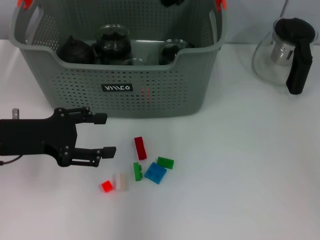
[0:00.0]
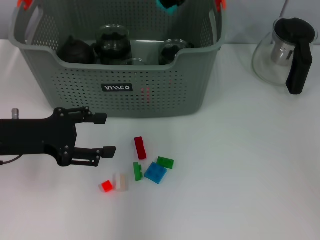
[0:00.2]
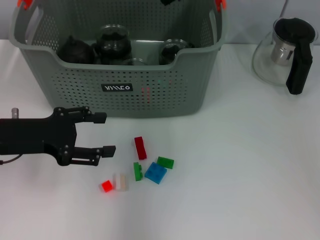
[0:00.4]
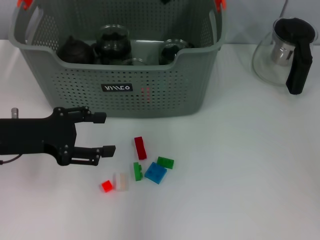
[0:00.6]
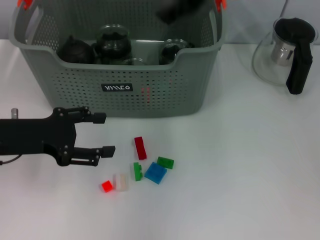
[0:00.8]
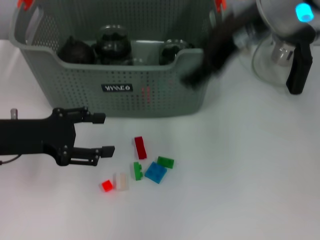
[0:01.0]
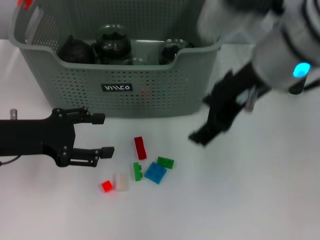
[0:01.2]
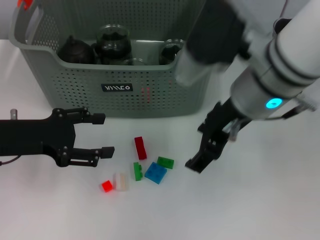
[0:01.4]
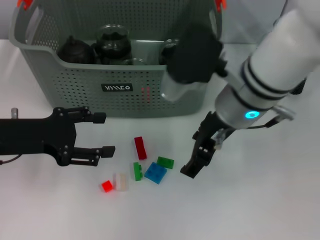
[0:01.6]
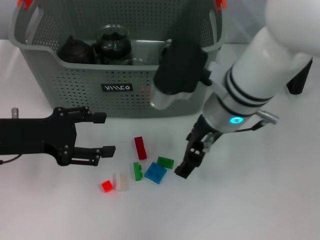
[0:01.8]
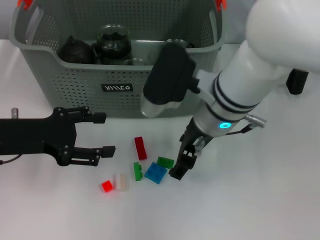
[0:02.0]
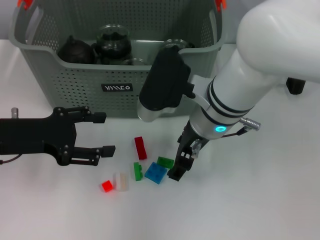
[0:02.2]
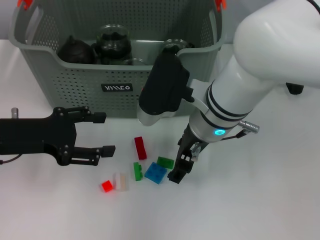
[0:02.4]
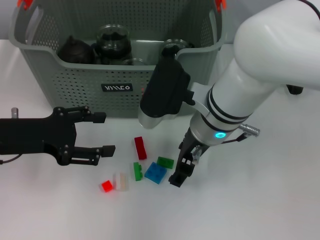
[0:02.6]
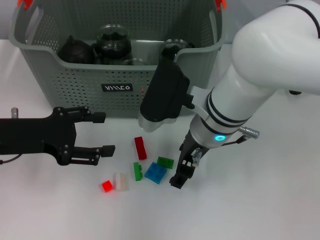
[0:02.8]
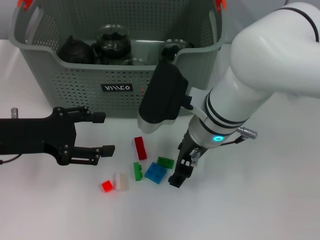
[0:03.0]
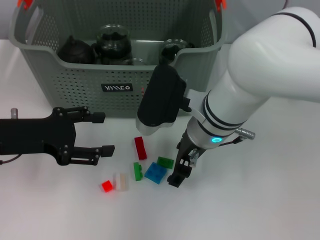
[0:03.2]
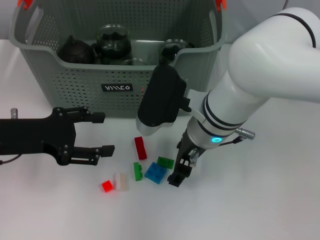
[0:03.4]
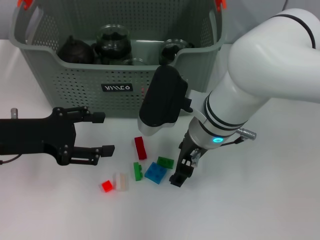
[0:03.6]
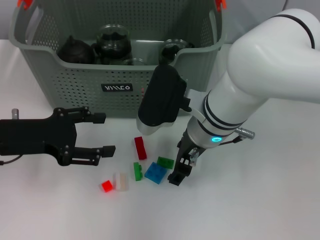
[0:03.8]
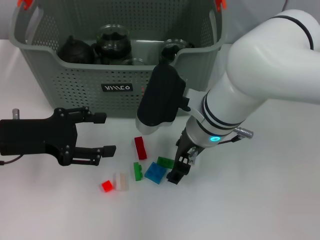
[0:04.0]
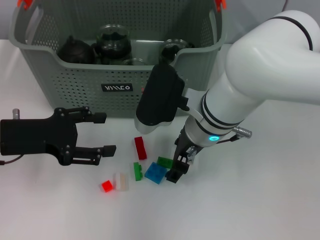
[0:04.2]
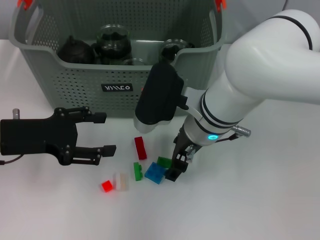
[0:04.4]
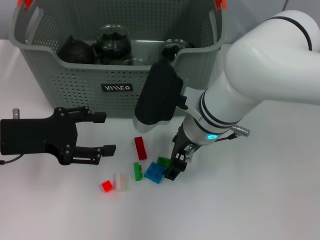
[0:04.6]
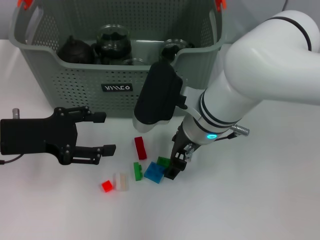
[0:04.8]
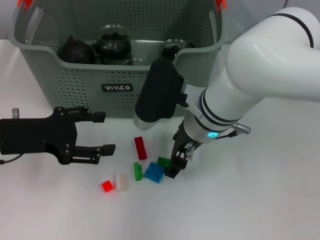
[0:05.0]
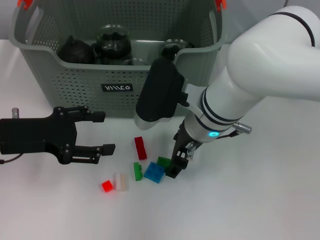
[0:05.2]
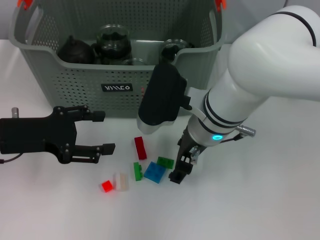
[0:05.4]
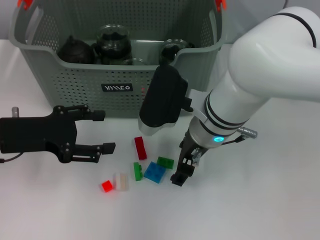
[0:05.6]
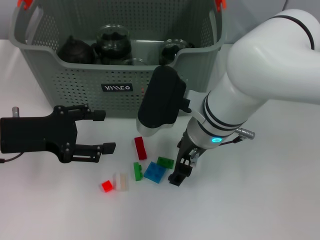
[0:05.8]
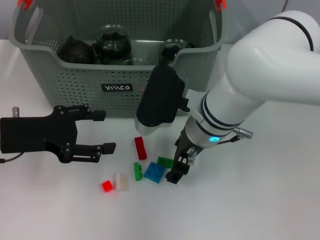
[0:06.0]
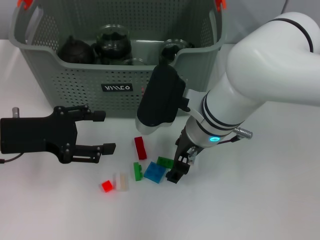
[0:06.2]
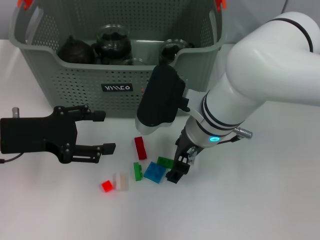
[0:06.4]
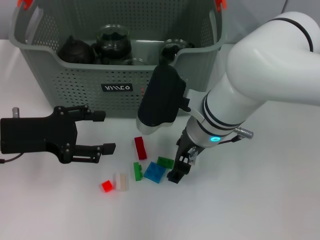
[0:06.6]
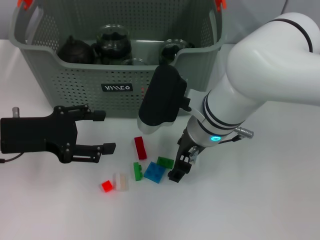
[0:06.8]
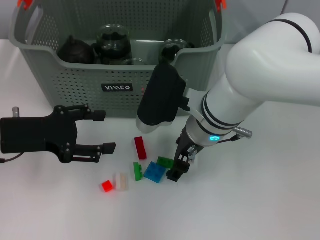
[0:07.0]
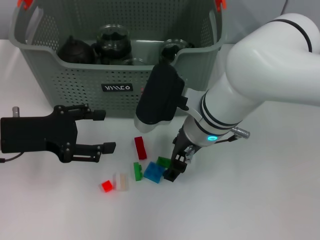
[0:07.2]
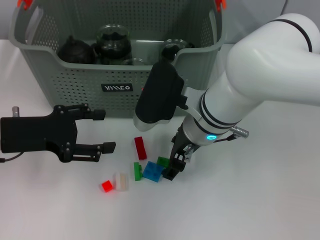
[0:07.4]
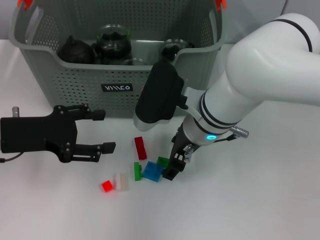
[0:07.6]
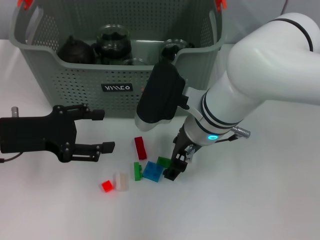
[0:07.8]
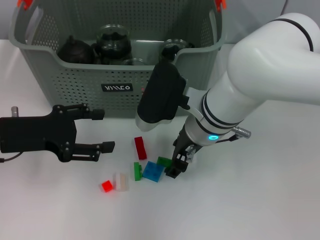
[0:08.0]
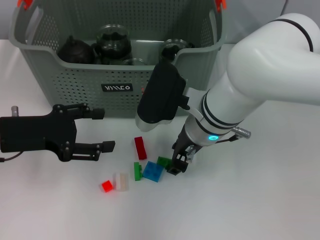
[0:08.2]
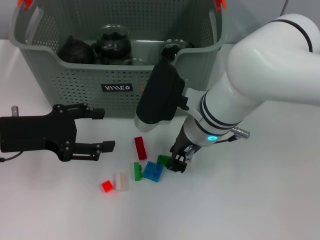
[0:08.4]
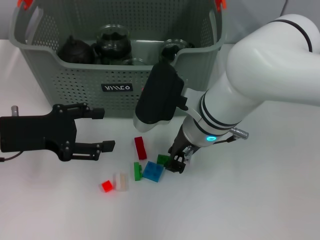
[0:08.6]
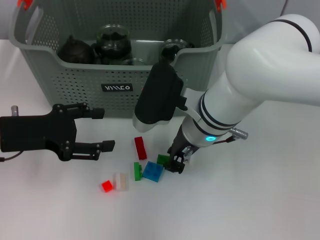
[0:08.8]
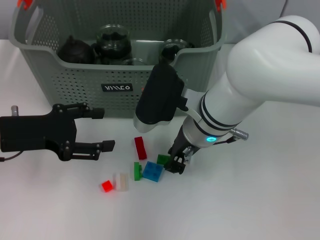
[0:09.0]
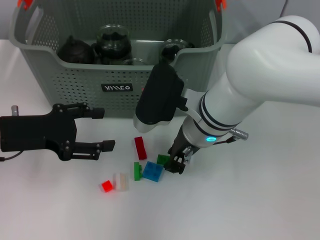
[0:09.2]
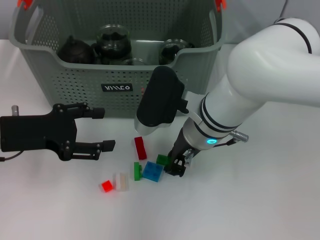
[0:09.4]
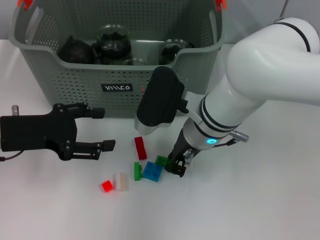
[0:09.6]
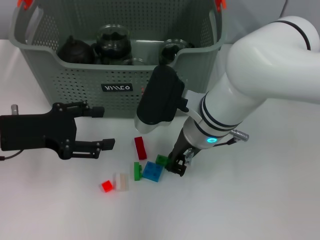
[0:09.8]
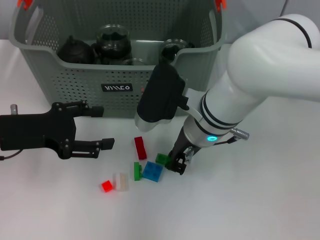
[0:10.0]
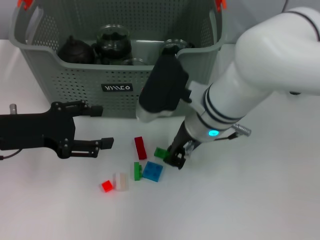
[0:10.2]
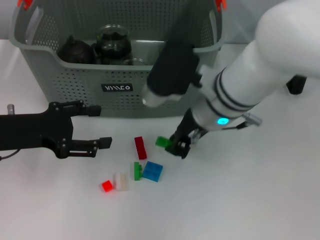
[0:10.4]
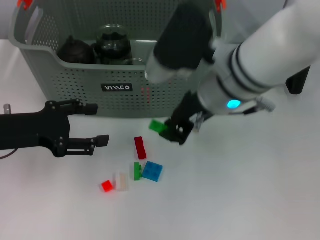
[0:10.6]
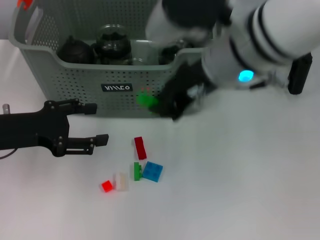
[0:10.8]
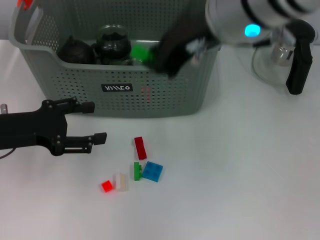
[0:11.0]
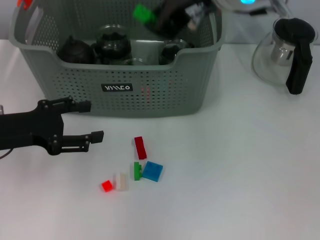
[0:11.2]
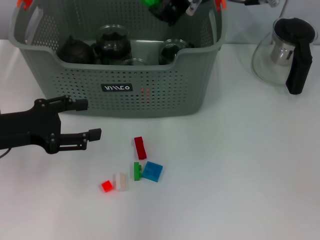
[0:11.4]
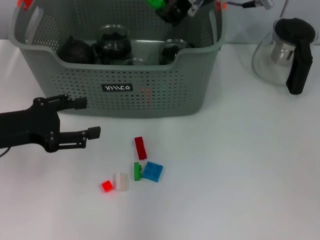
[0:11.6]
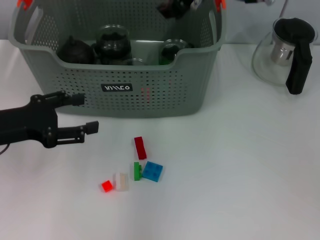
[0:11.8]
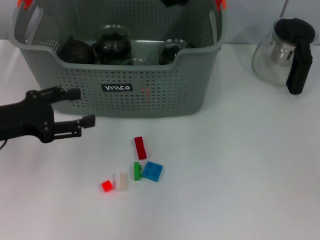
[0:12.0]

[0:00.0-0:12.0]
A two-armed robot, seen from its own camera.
Task of the whole recording: pick up the teacup on the table and place it into the storage bin, pick up the block on the table and place it into the storage bin.
Step, 0:00.6 to 0:09.6: Grasp the green block with right gripper.
Step, 0:09.8 to 0:11.8: Place the green block in the storage box with right gripper.
0:00.0 to 0:01.6: The right gripper is displaced downward and backward by approximately 15 cm, and opens.
0:01.6 to 0:03.0: The right gripper goes roughly 5 cm downward.
0:03.0 to 0:07.6: Both grippers stay put.
0:07.6 to 0:09.0: The right gripper closes.
0:09.0 to 0:10.4: The grippers make only small movements.
0:10.4 to 0:12.0: The right gripper goes roughly 15 cm upward and forward.

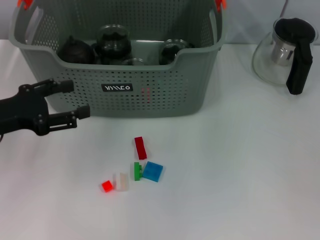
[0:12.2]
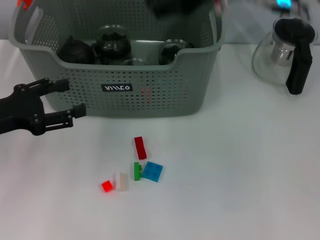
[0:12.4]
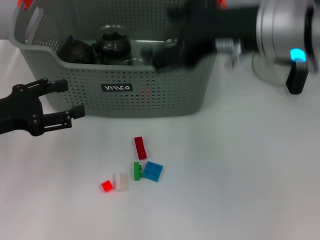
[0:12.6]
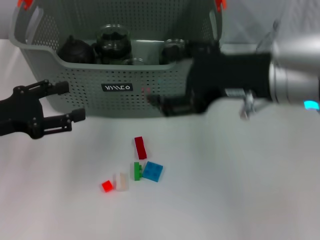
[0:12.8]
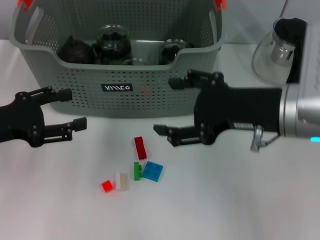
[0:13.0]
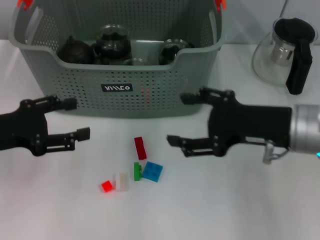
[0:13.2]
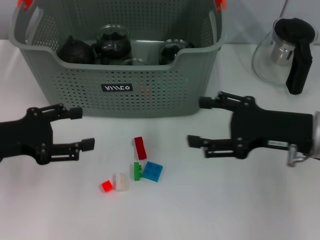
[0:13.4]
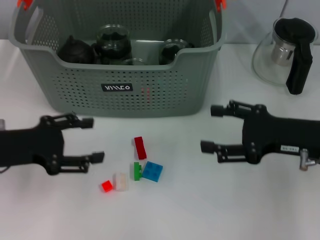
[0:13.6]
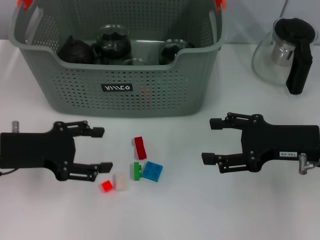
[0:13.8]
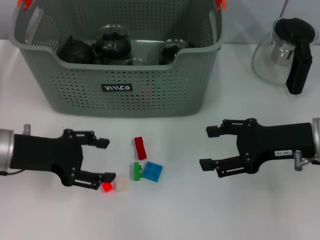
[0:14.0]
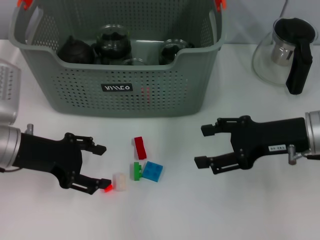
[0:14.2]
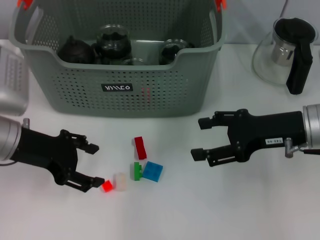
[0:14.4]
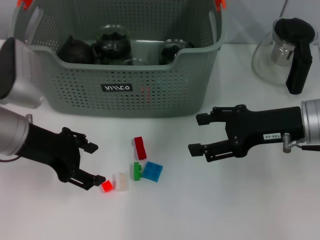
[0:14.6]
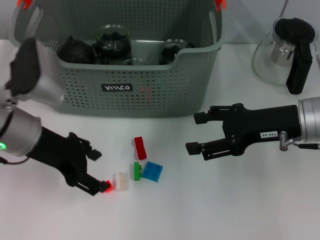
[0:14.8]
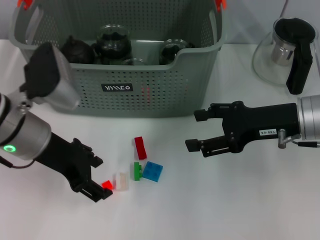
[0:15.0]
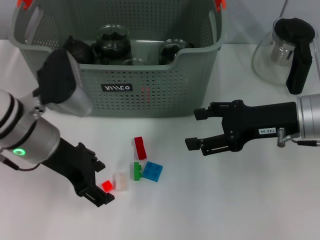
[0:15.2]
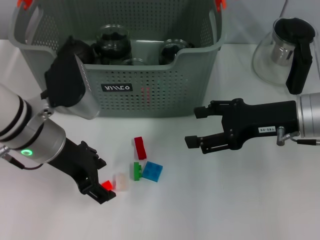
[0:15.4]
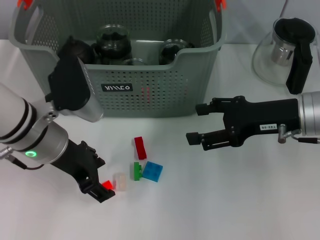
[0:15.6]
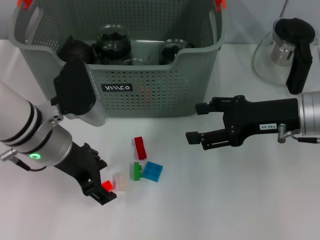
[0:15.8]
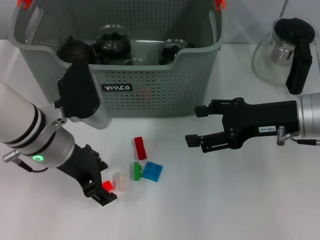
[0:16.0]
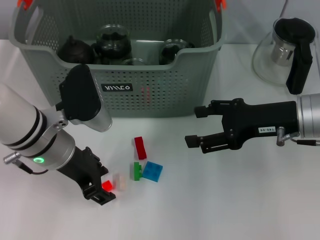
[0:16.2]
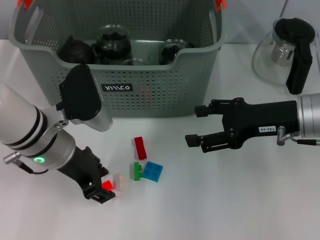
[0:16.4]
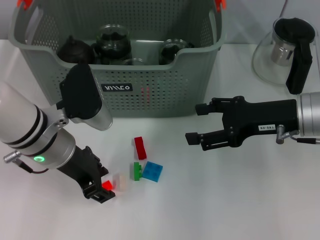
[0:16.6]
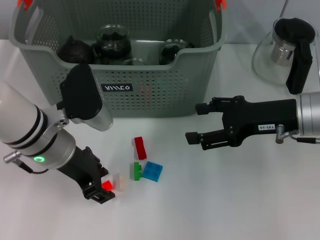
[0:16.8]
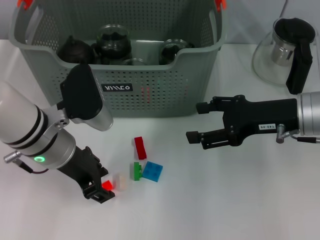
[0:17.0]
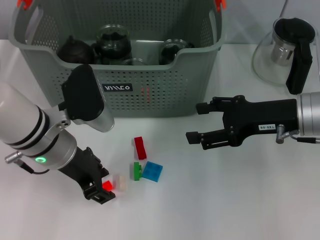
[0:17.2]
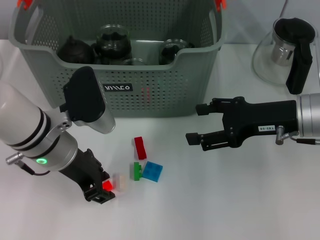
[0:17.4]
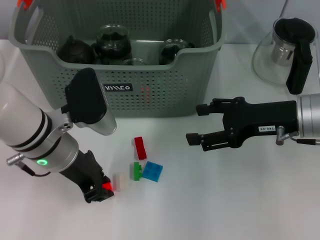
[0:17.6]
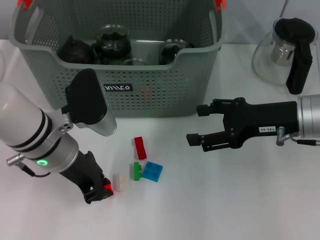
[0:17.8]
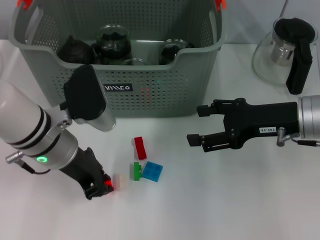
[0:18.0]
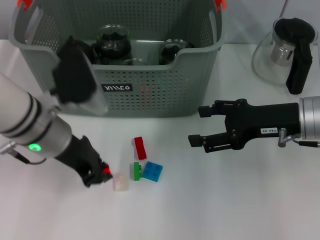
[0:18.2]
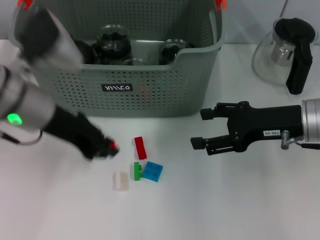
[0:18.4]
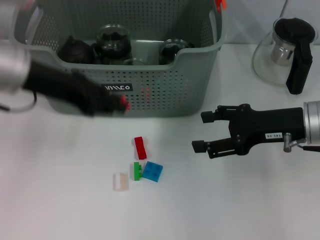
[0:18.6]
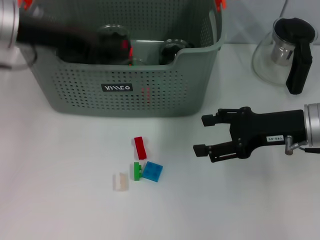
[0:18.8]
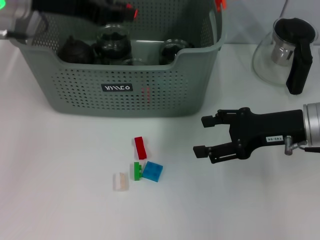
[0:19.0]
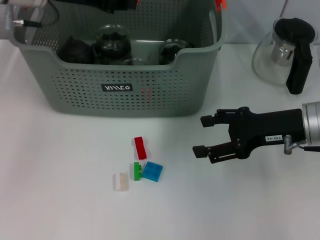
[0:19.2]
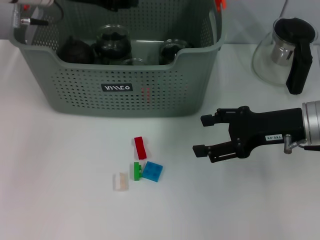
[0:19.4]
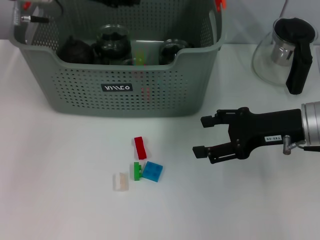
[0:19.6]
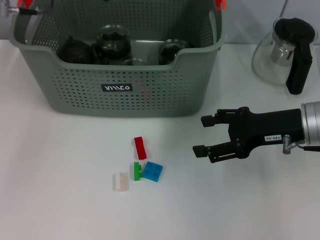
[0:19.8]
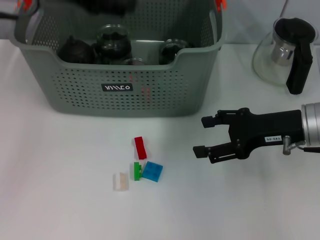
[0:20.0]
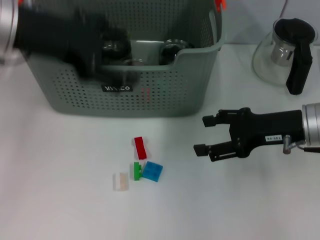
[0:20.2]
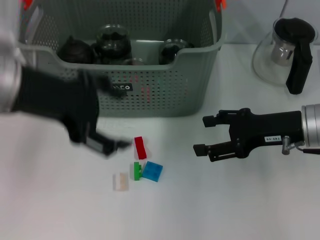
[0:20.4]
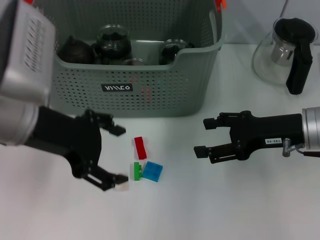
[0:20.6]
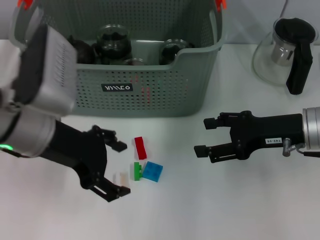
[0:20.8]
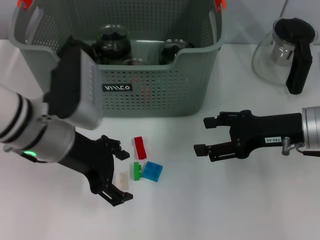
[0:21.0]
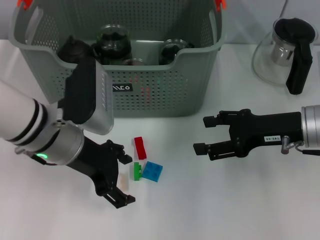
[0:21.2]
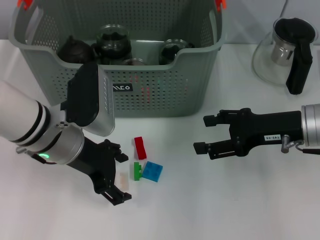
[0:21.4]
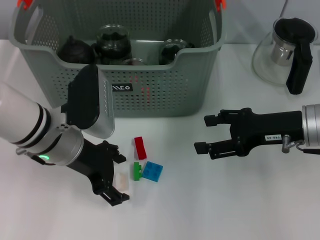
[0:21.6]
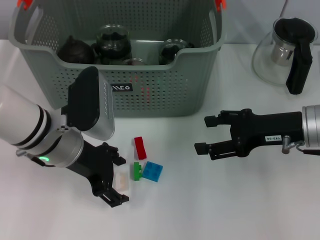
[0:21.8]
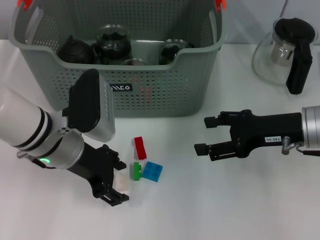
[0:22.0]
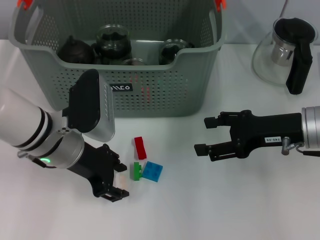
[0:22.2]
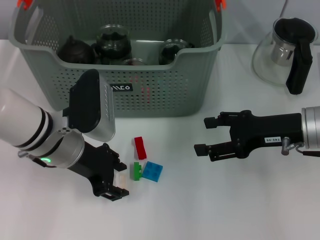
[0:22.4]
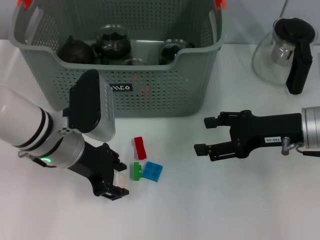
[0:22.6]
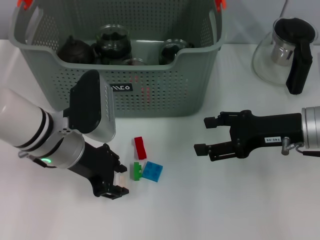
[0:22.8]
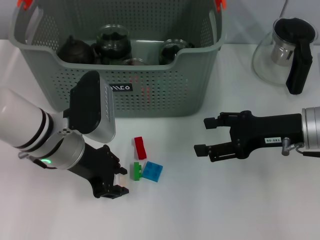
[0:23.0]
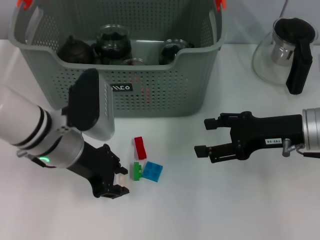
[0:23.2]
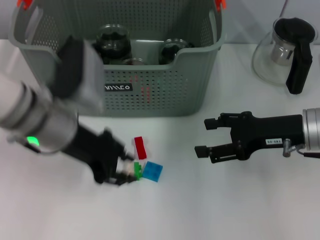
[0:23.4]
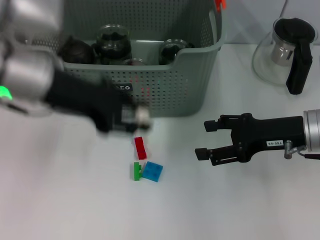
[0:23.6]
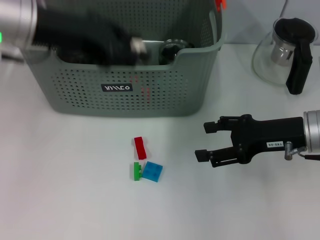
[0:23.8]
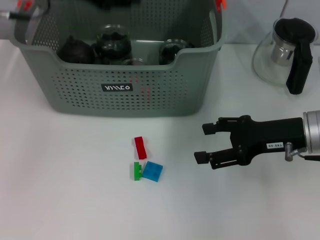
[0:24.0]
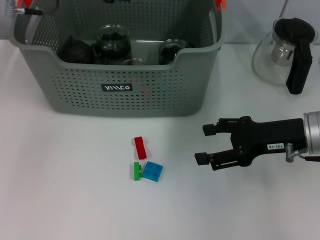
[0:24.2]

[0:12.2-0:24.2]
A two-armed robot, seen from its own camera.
Task of the whole recording: pick up the teacup on the table and place it into the storage bin, pick up the block on the table and place it into the storage bin.
Step, 0:12.2 to 0:17.6: Grasp the orange block with right gripper.
Step, 0:19.8 to 0:23.0: Grasp the white block with left gripper.
0:12.2 to 0:13.8: The right gripper is displaced downward, to the right and backward by approximately 25 cm, and opens up.
0:13.8 to 0:15.2: The left gripper heads to the right, covering some 10 cm.
0:15.2 to 0:16.6: The grippers stay close to where they were, moving slightly.
0:16.6 to 0:18.2: The left gripper closes.
0:18.2 to 0:19.8: The left gripper moves upward and forward, some 15 cm.
0:19.8 to 0:21.2: The left gripper heads downward and backward, covering some 20 cm, and opens up.
0:21.2 to 0:22.6: The left gripper closes its fingers.
0:22.6 to 0:24.2: The left gripper shifts roughly 20 cm upward and forward.
